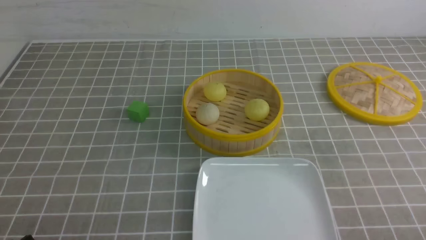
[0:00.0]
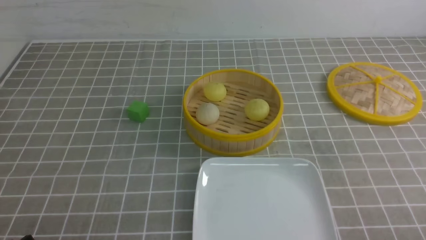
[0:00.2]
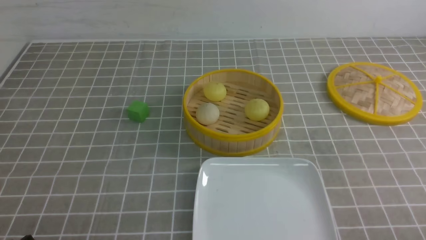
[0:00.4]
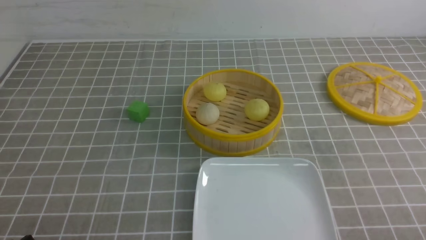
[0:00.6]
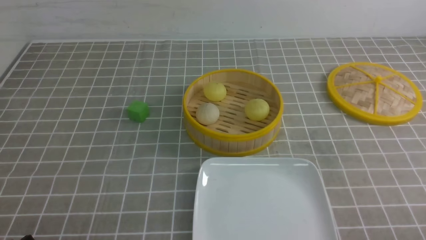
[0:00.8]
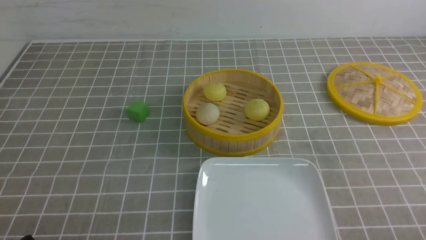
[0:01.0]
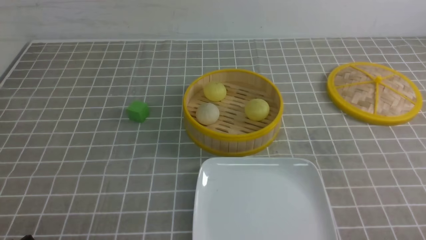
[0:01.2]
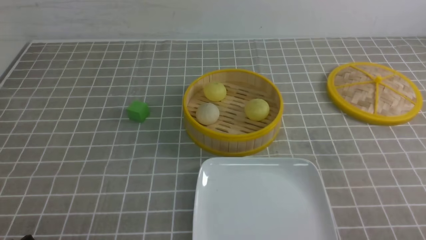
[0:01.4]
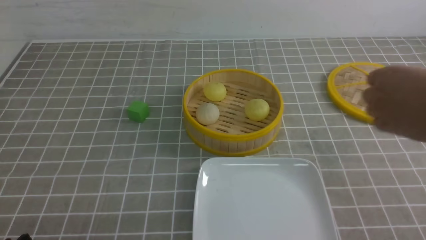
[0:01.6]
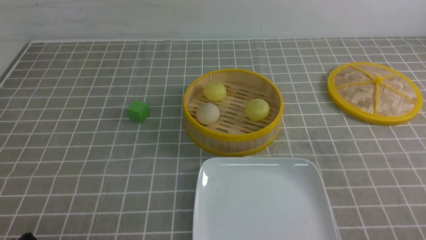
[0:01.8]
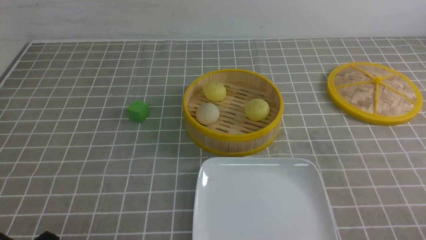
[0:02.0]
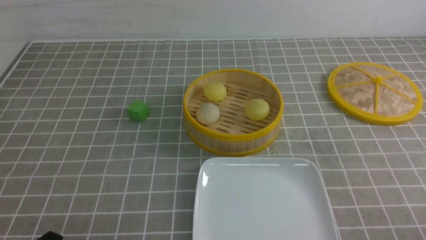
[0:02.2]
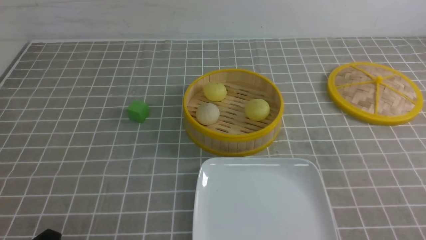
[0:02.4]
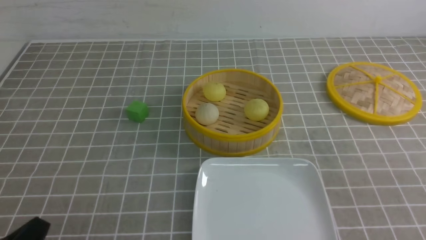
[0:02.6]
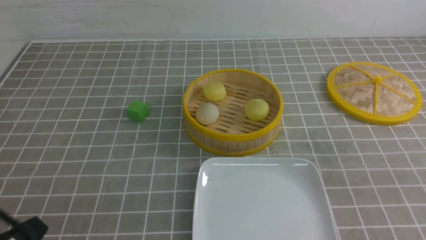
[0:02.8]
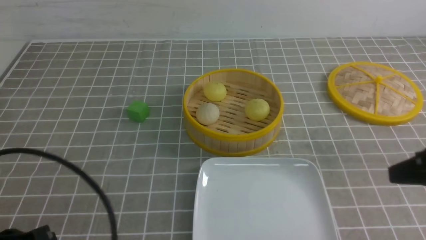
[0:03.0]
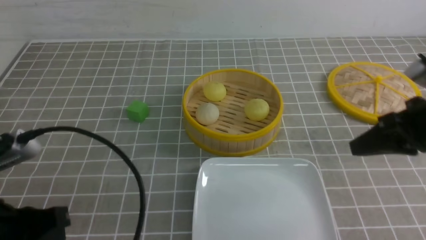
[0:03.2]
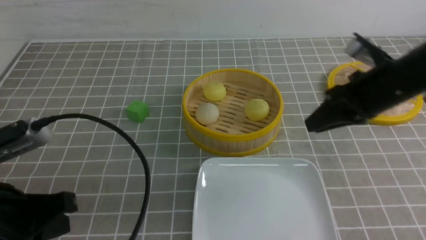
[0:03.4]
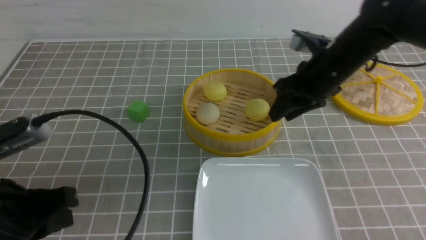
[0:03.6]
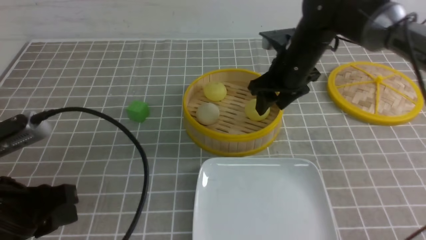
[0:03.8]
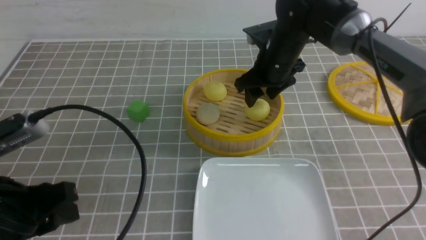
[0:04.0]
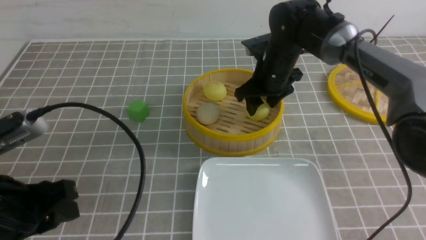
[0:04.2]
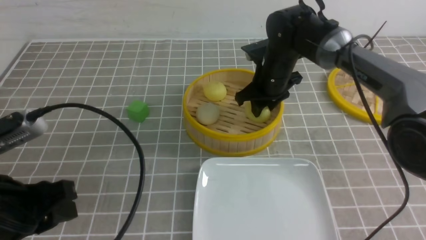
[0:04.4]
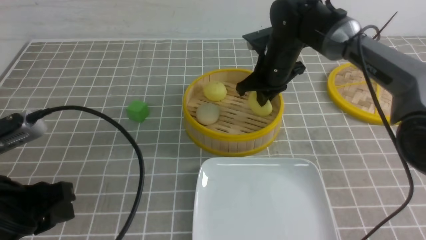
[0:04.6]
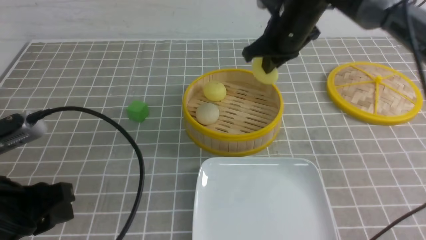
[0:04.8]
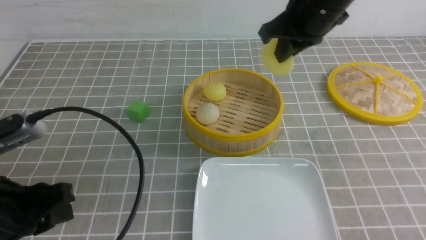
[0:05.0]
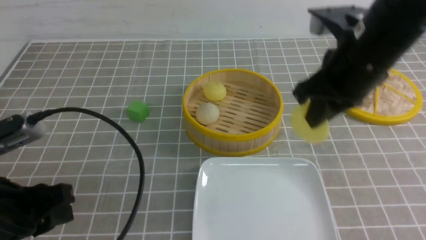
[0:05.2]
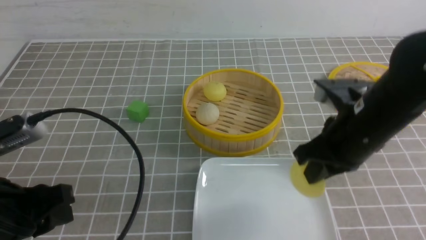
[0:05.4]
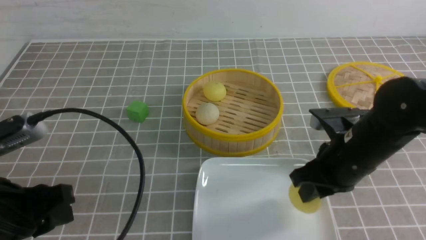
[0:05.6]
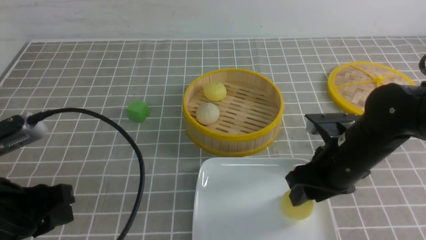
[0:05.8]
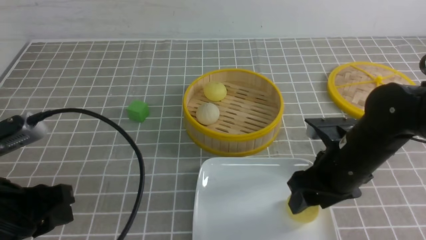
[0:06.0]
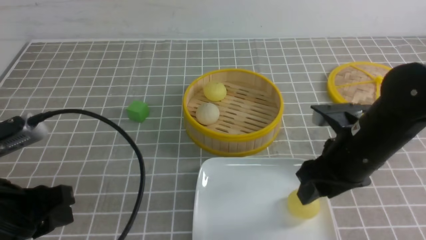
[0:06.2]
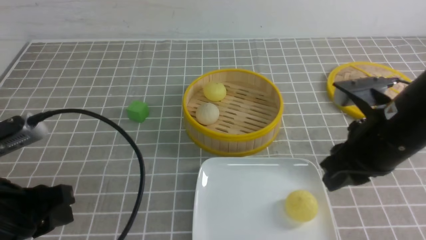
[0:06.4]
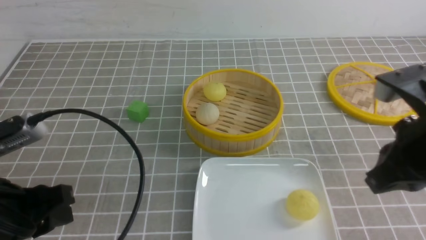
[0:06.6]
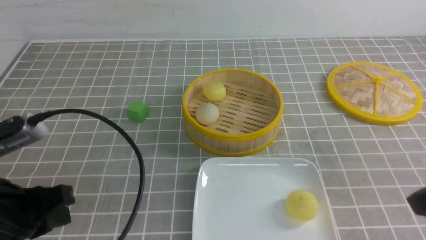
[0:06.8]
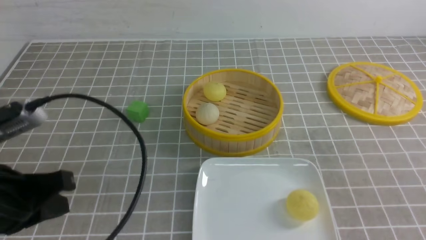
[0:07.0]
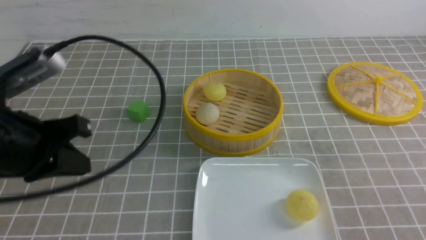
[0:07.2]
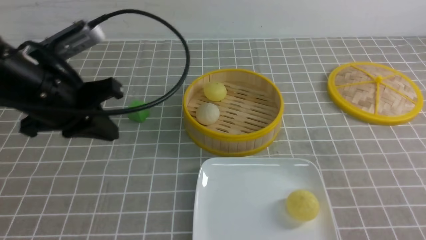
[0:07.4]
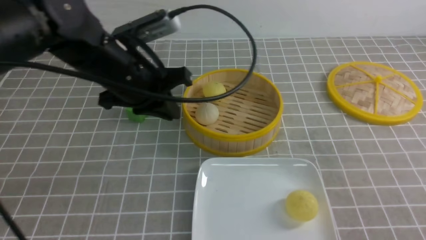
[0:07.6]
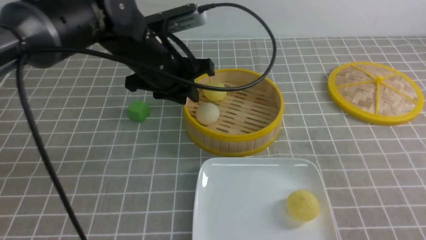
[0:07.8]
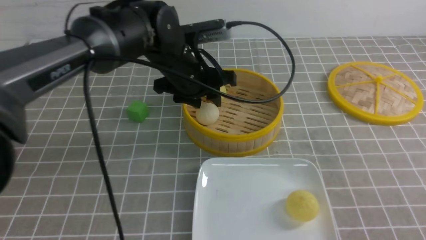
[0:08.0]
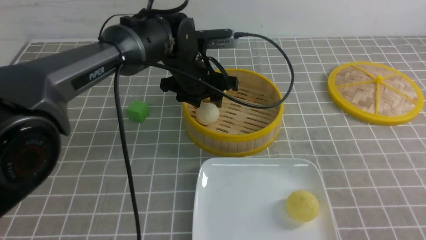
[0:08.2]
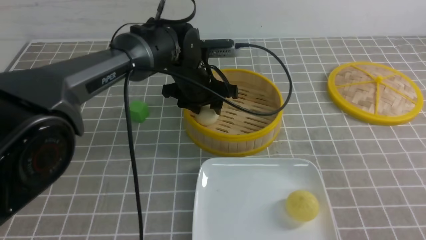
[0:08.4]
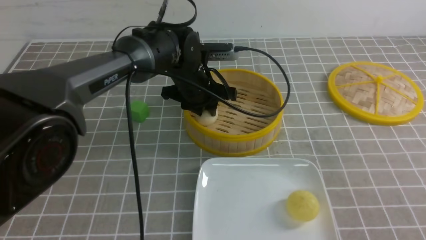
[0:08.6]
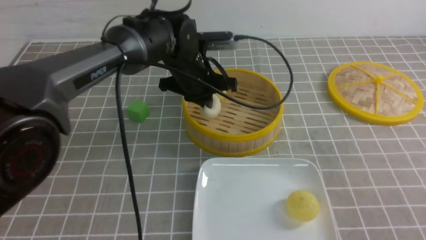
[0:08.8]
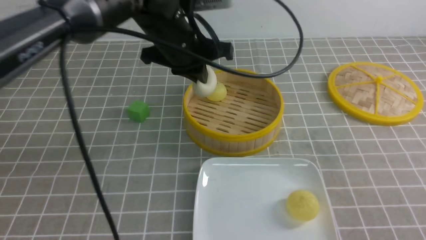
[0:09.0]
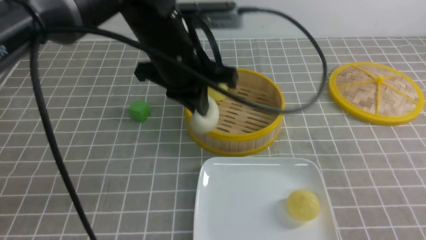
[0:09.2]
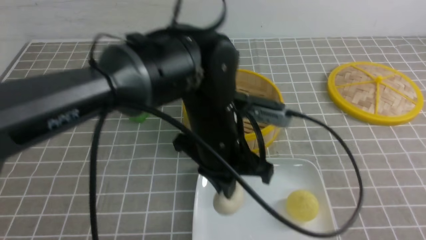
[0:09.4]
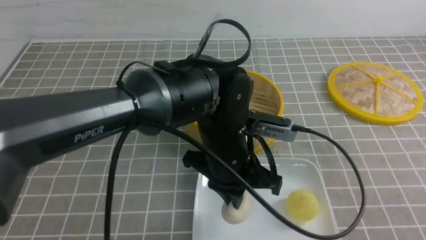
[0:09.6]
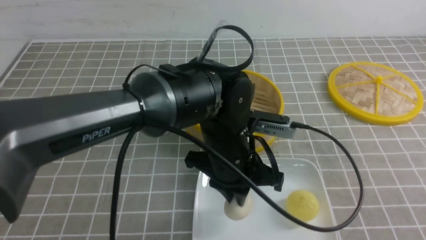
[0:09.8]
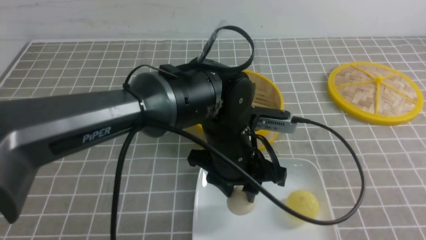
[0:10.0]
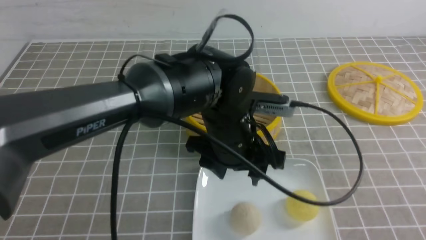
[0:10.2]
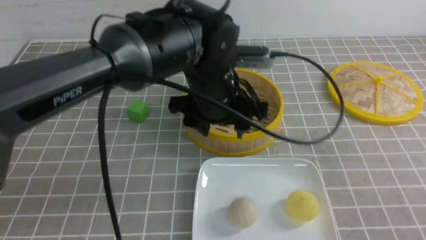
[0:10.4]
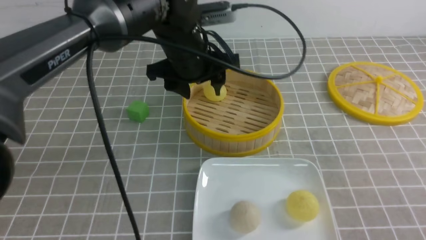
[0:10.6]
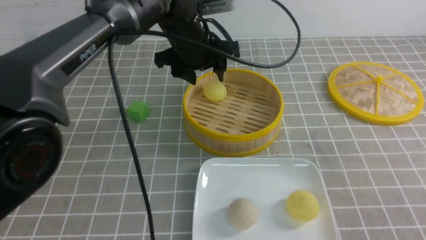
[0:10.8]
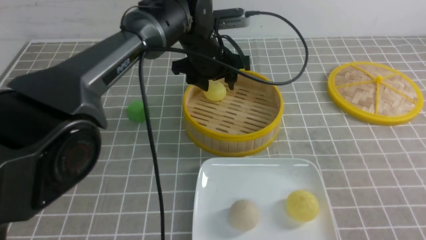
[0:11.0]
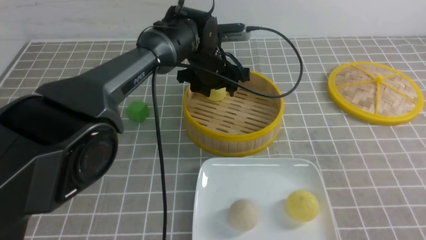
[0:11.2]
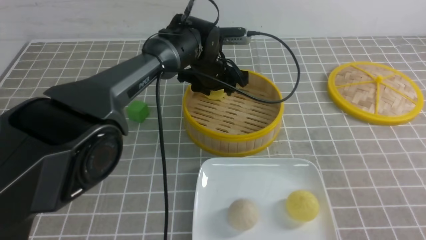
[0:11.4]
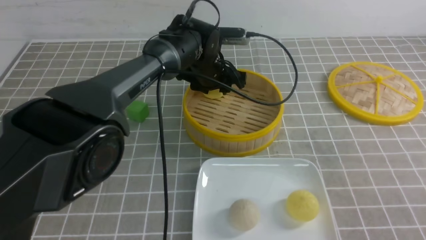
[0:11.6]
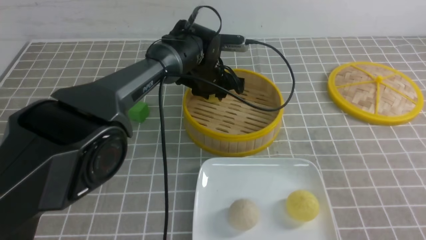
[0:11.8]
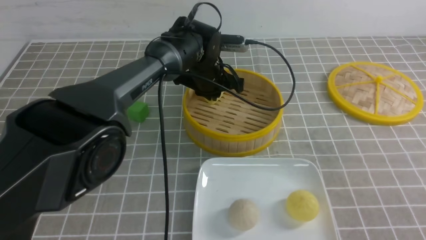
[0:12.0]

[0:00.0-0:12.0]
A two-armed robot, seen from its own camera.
Step, 0.0 to 4.6 s: use the right arm to grab the steamed stuffed bun that is closest to it.
Step, 4.8 to 6.0 s: use the right arm to put the steamed stuffed bun into the plate.
Step, 6.2 to 8.6 s: use the left arm to grab the steamed stuffed bun that is closest to it.
Step, 8.8 to 10.0 s: use the left arm to put the steamed stuffed bun into the plate.
0.0 to 1.6 s: The grippers make only small movements.
1.6 to 3.0 s: The right gripper travels forward and upward by some 20 cm, and closes its fingers; the left gripper moves upward, some 10 cm, and closes its fingers.
3.0 to 4.4 s: The right gripper is displaced forward and to the left by about 35 cm, and opens up. Meanwhile the left gripper moves forward, approximately 5 cm, and opens.
4.4 to 6.0 s: The right gripper shifts some 20 cm backward, and opens up.
6.0 to 7.6 s: The right gripper goes about 25 cm backward and to the right, and closes up. Meanwhile the left gripper goes approximately 20 cm forward and to the right, and closes.
7.6 to 9.0 s: The left gripper is displaced to the right by roughly 10 cm, and opens and closes again.
9.0 to 10.4 s: The left gripper opens.
10.4 to 12.0 s: The left gripper goes roughly 15 cm forward, and closes up.

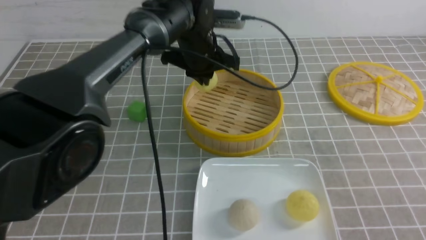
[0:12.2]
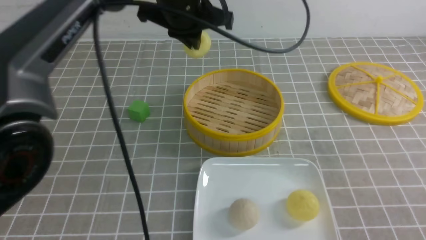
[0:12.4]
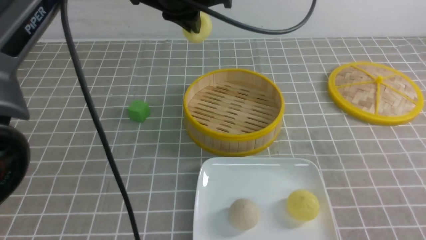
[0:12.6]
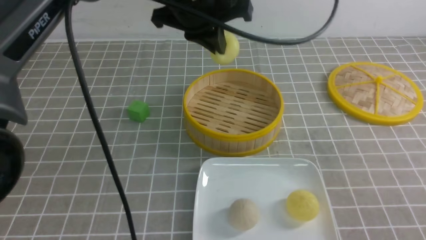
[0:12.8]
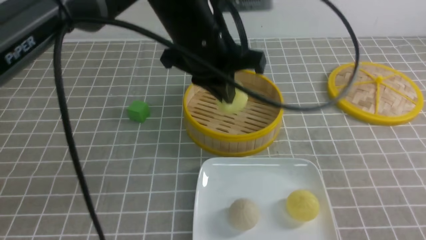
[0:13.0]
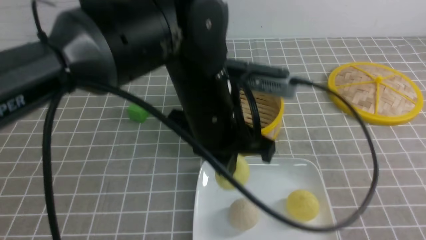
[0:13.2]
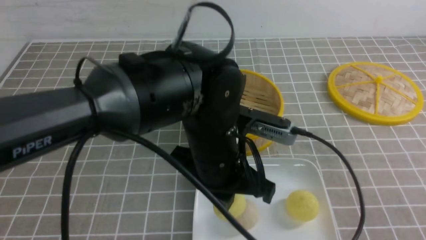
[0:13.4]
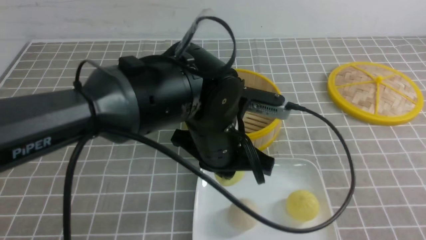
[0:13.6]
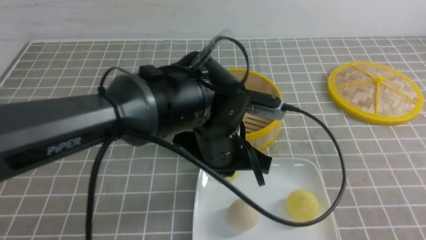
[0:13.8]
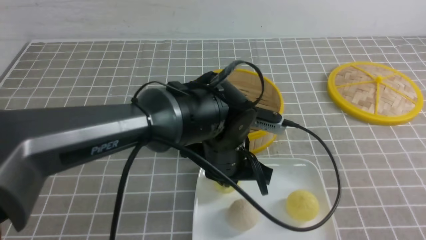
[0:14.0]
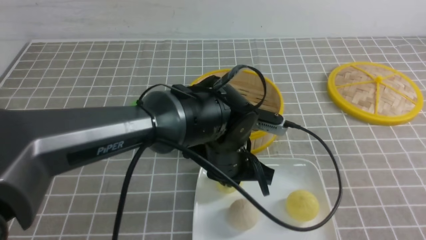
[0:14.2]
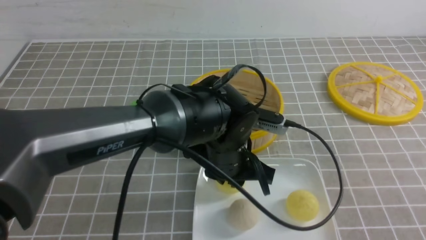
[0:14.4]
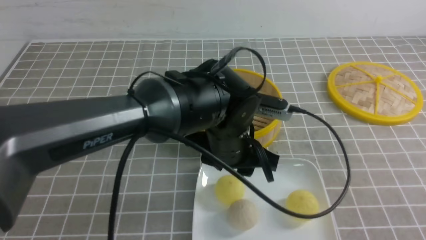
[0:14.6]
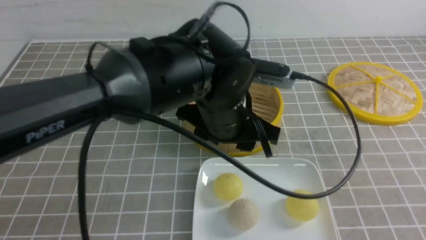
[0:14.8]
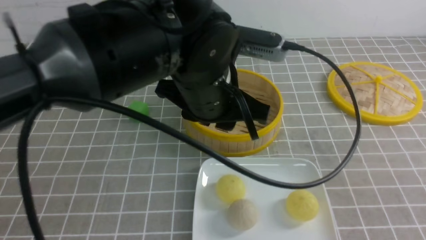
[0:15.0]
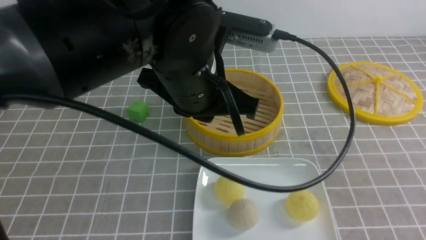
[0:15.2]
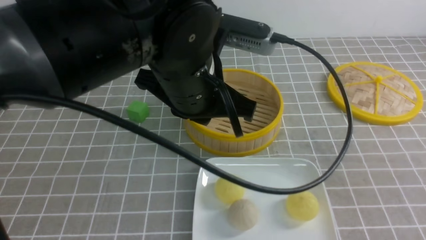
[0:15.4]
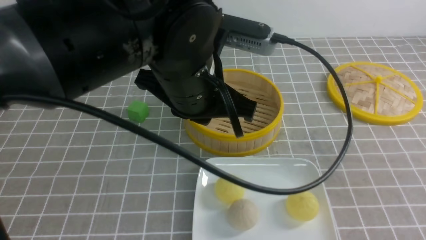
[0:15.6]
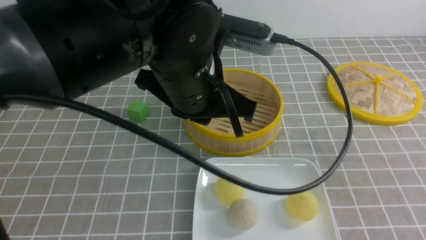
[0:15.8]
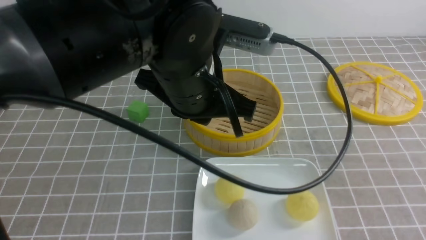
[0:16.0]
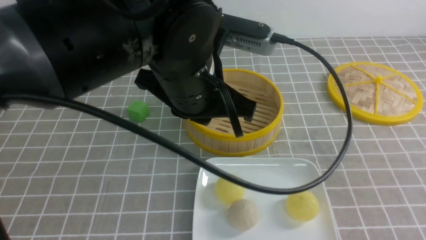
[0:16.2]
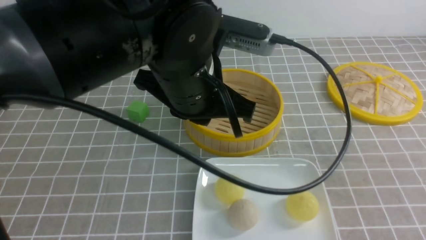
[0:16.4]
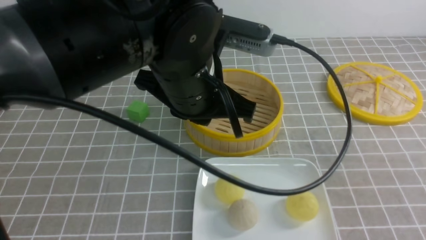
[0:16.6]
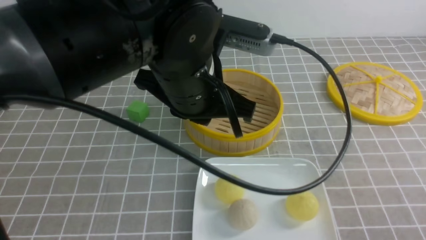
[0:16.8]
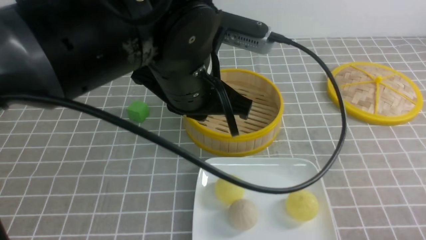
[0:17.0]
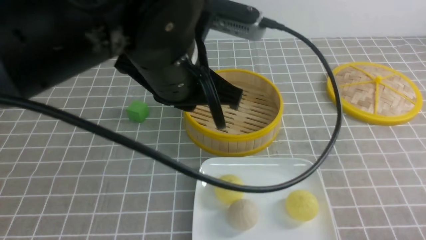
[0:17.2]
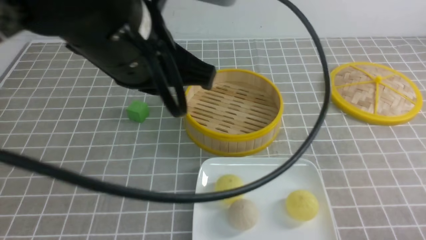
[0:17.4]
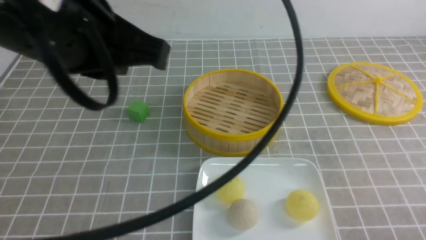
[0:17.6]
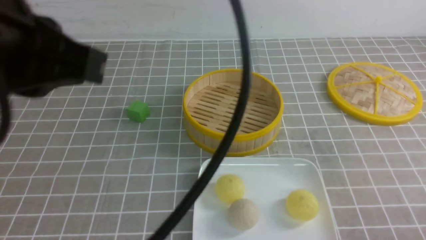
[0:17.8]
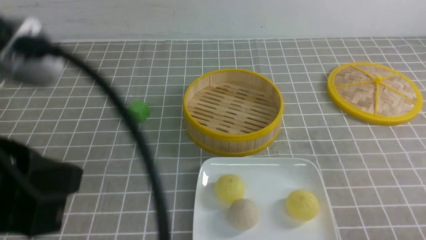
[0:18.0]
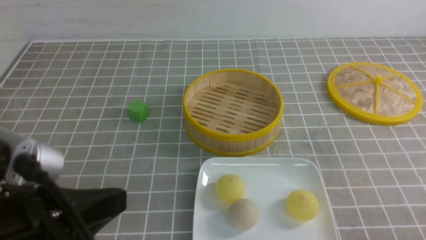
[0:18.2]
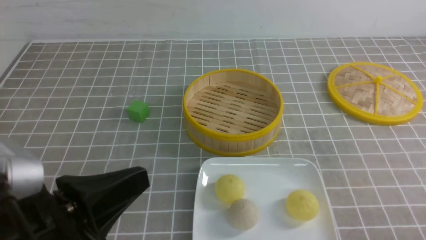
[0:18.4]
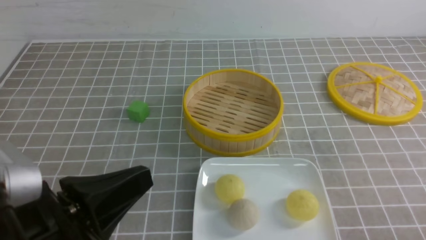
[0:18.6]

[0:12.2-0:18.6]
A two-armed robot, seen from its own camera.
Step, 12.2 to 14.4 s: use the left arm to put the steamed stuffed bun into the plate.
12.2 to 13.8 s: The left gripper moves backward, about 20 cm.
13.8 to 15.4 s: The left gripper heads upward, covering some 10 cm, and opens and closes again; the right gripper closes its fingers.
15.4 to 17.0 s: The right gripper heads downward, covering approximately 10 cm.
17.0 to 18.6 s: The left gripper shifts approximately 20 cm backward and to the left.
